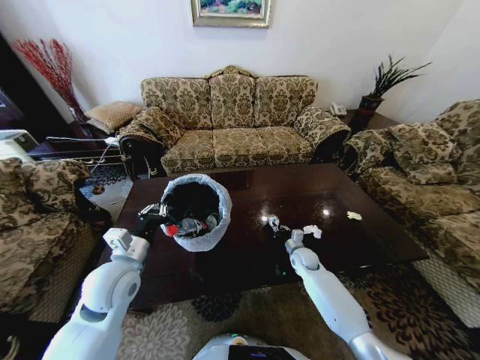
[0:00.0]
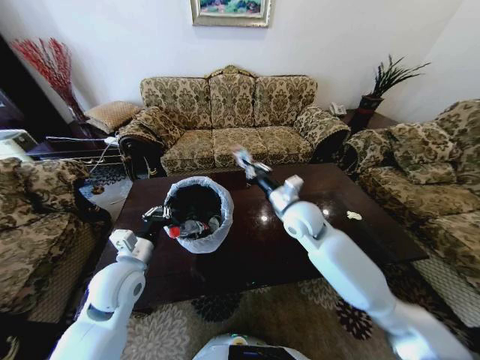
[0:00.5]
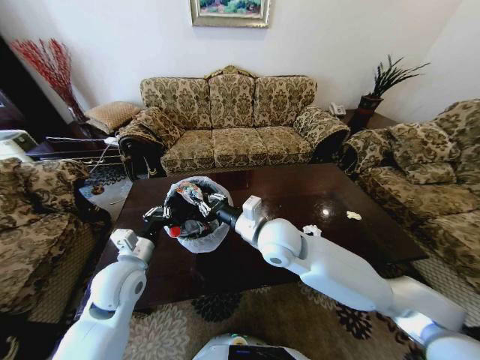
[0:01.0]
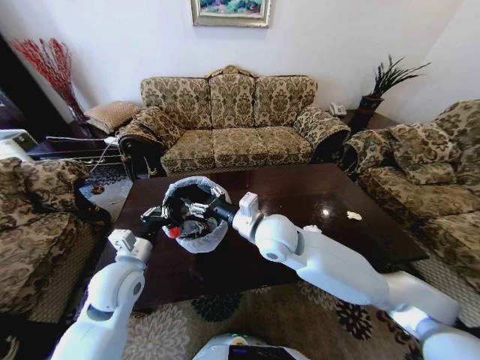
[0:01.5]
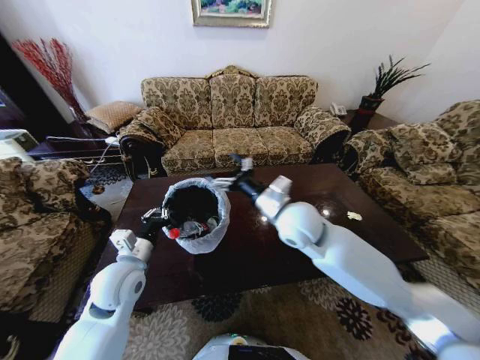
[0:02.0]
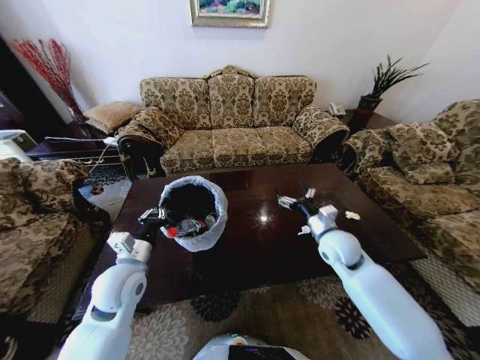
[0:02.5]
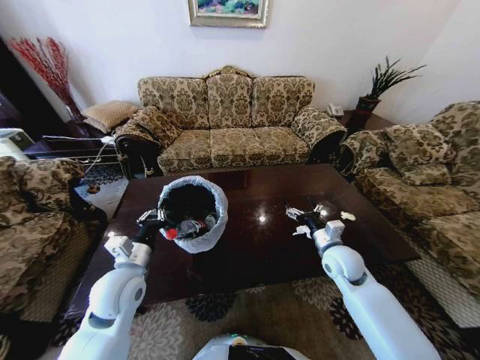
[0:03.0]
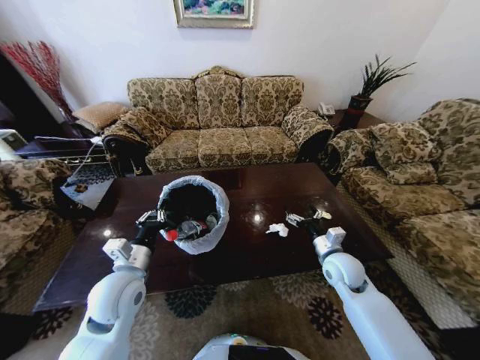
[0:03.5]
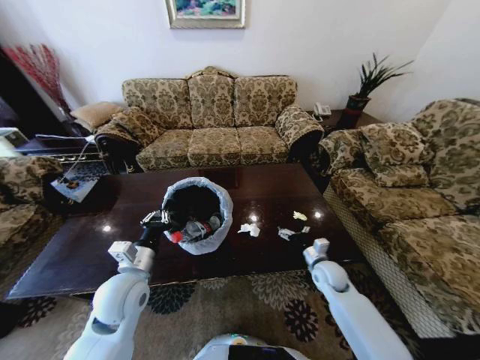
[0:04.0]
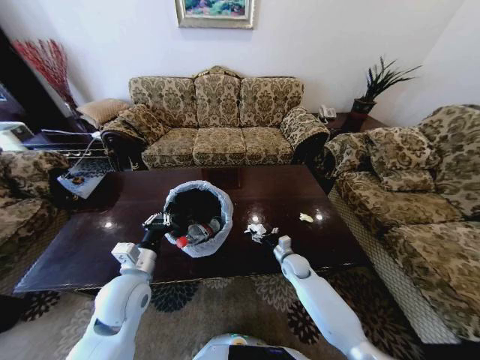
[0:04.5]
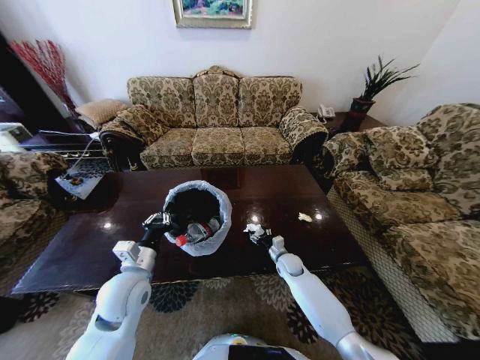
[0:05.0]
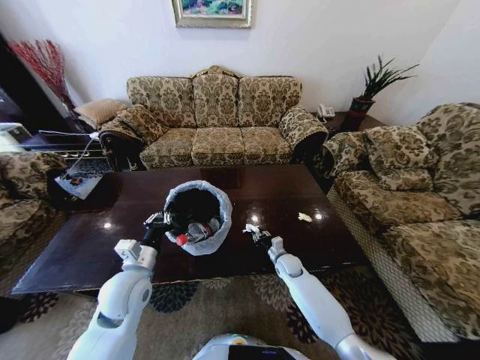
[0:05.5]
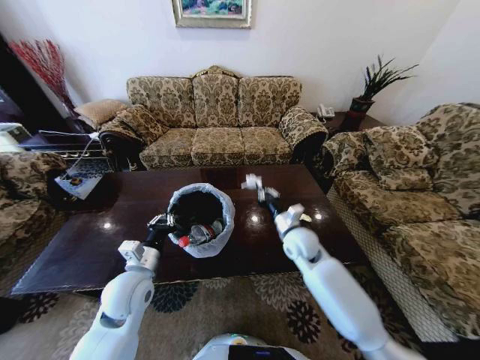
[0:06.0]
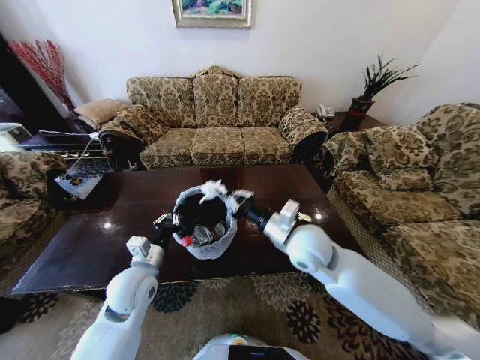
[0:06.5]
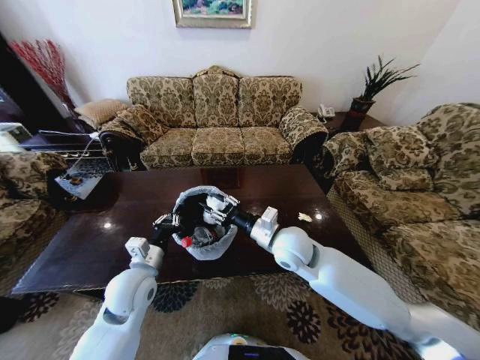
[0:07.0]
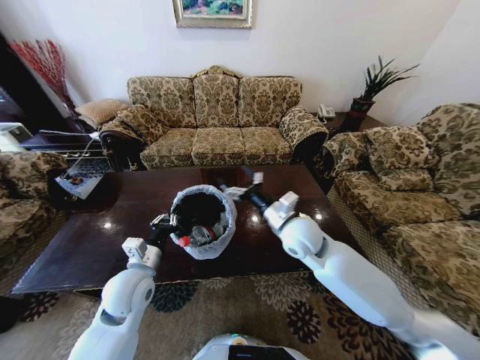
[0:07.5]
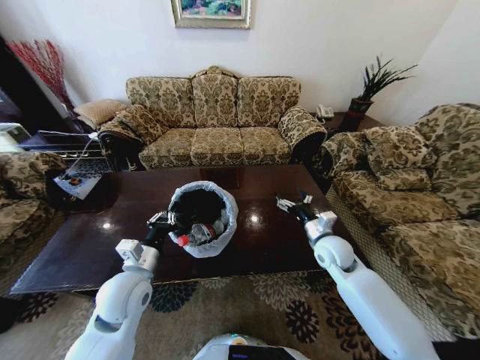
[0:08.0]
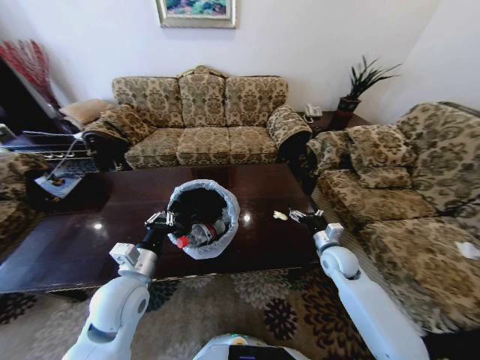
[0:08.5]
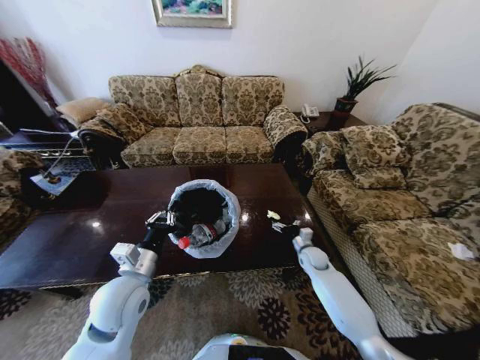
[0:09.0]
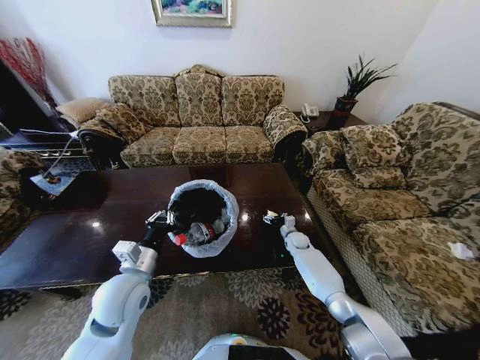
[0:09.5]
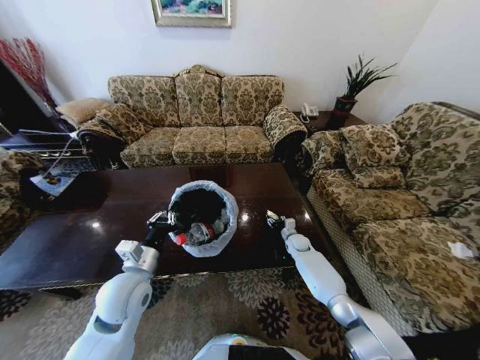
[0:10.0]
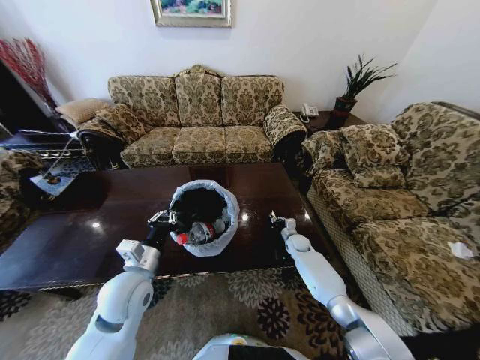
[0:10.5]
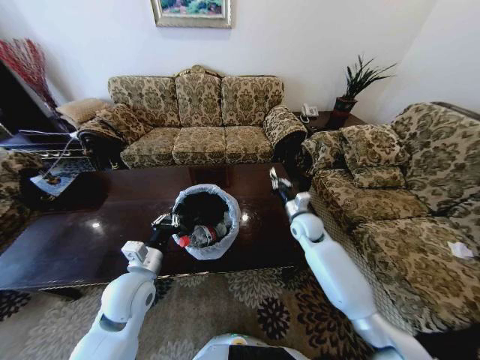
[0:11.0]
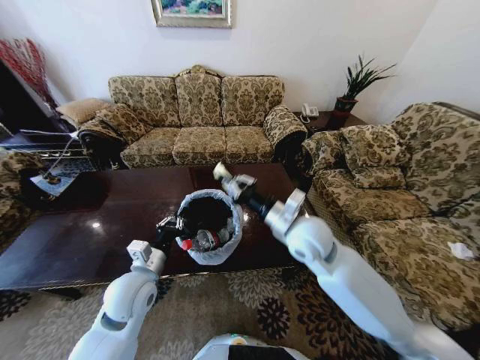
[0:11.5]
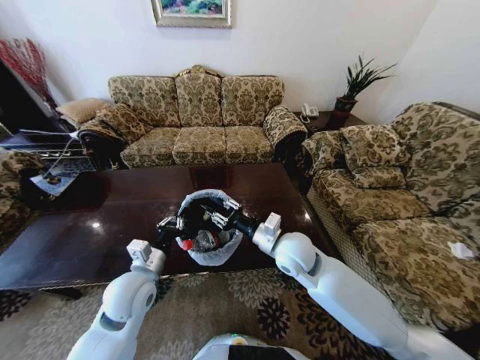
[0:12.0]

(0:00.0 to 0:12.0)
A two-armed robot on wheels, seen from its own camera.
Task of the whole recording: Move to the front of the table and place the trash on the table into the trash bin.
0:00.0 - 0:02.0: The right gripper is displaced upward by approximately 30 cm, and opens up.
0:02.0 - 0:04.0: The right gripper shifts about 30 cm downward and to the right.
0:04.0 - 0:06.0: The right gripper shifts approximately 15 cm upward and to the left, and closes up.
0:06.0 - 0:08.0: The right gripper travels to the right by about 10 cm, and opens up.
0:08.0 - 0:10.0: The right gripper is displaced downward and forward by roughly 25 cm, and closes.
0:10.0 - 0:12.0: The right gripper is displaced upward, backward and to the left by approximately 35 cm, and closes and opens again.

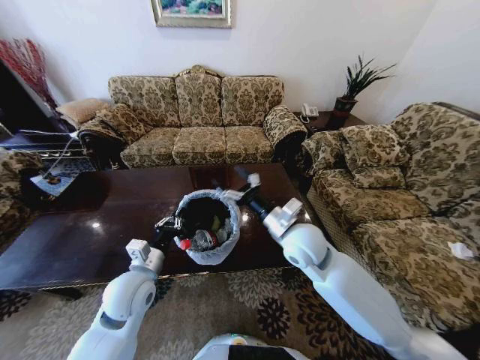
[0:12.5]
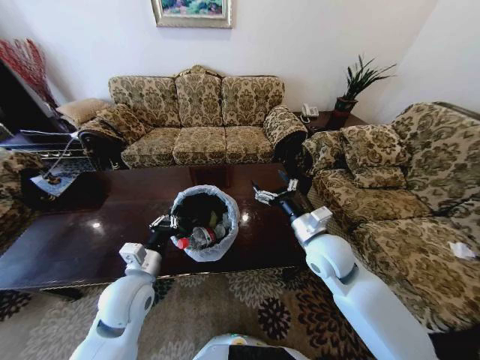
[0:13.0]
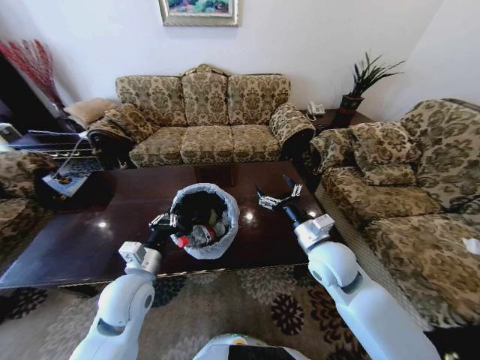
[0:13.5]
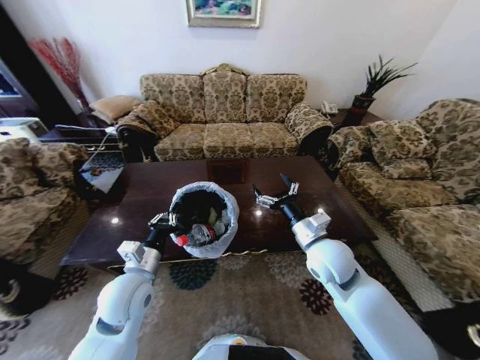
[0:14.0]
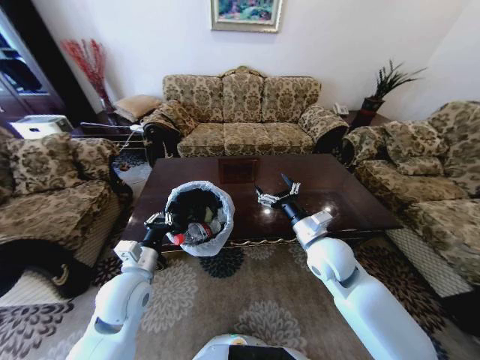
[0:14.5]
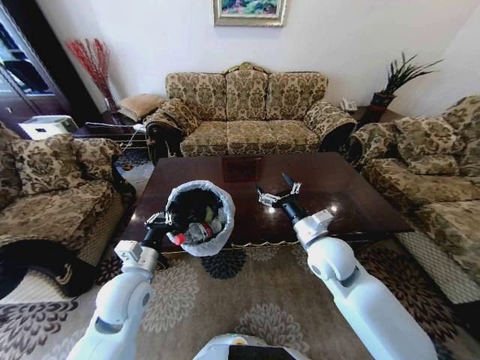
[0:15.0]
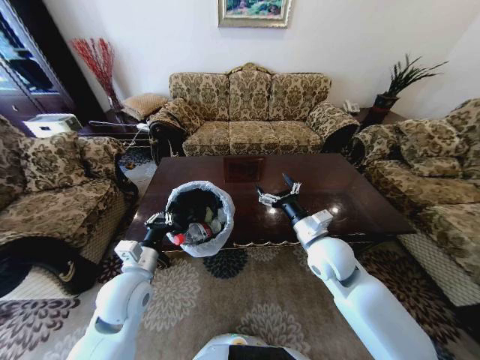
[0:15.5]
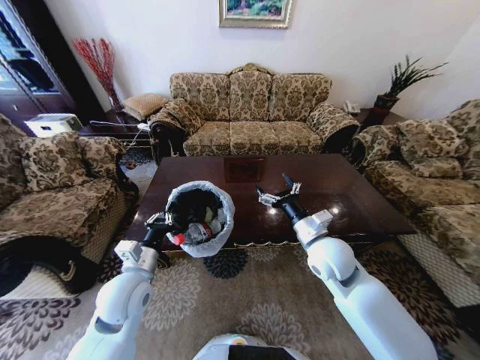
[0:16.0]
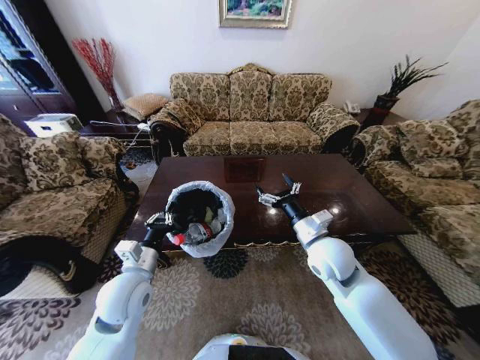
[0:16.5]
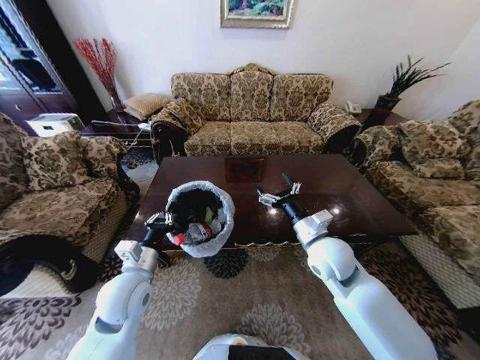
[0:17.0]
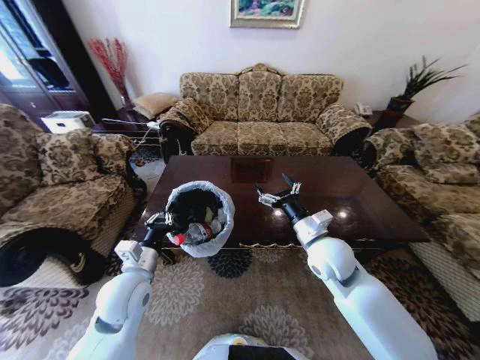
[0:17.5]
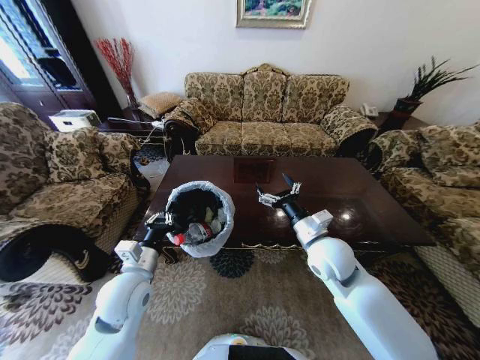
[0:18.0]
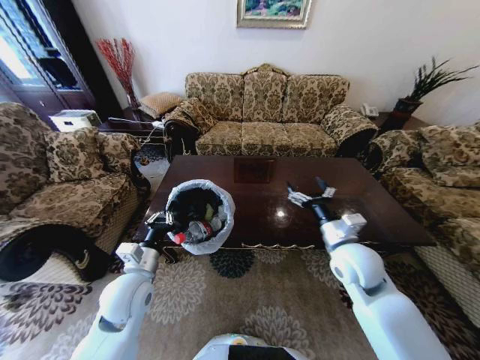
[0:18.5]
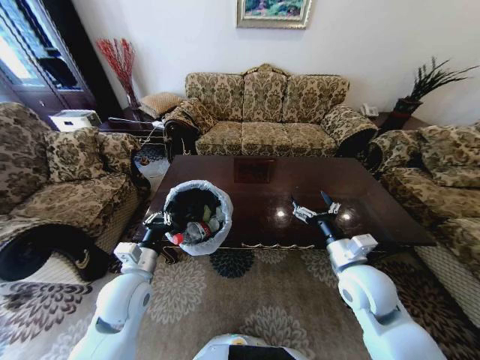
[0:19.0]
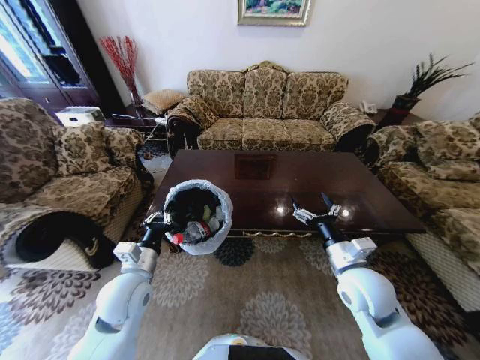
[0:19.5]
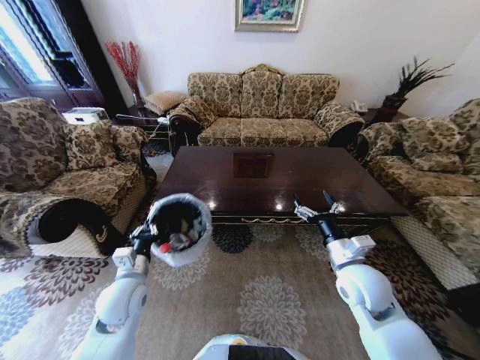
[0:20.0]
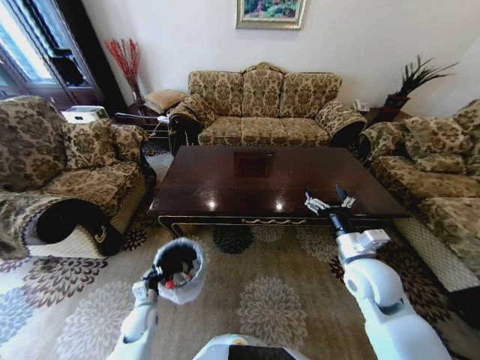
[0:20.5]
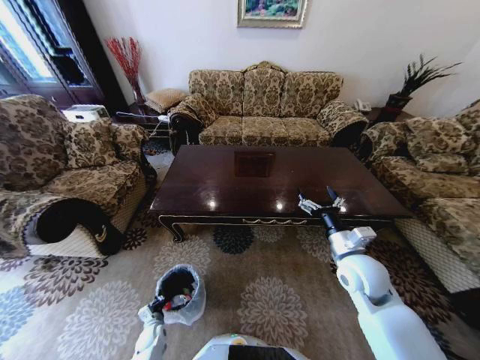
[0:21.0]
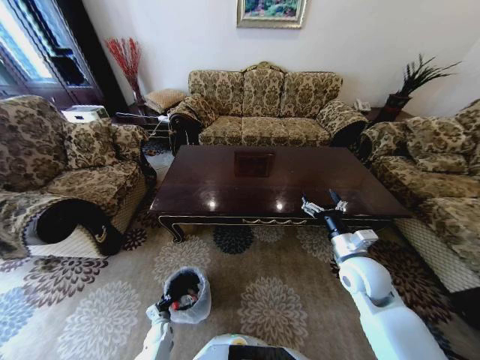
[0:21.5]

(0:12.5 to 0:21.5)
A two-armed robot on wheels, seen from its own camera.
Task of the whole recording: Move to the front of the table and place the trash on the table into the trash bin.
0:12.5 - 0:14.5: The right gripper heads to the right, covering approximately 5 cm.
0:17.0 - 0:19.5: The right gripper heads to the right and backward, covering approximately 10 cm.
0:19.5 - 0:21.5: The right gripper ends up some 5 cm from where it was. Meanwhile the left gripper goes some 40 cm downward.

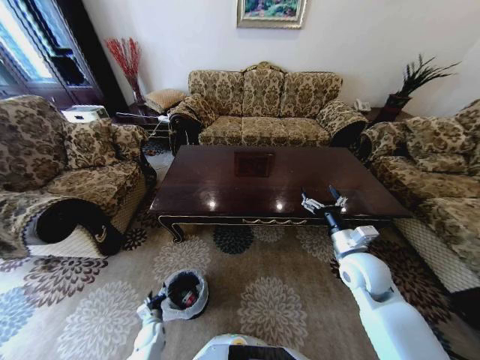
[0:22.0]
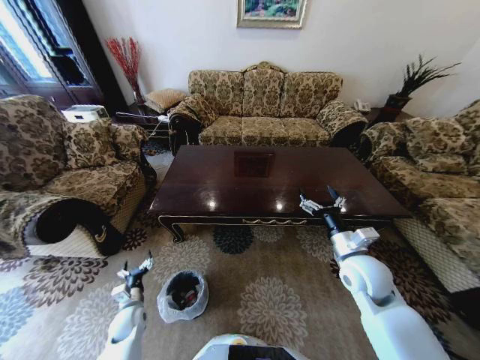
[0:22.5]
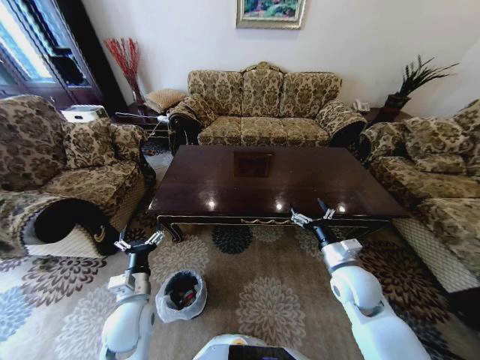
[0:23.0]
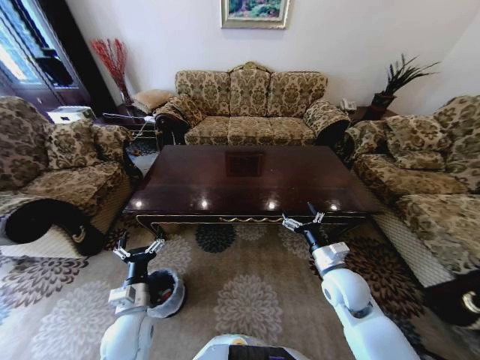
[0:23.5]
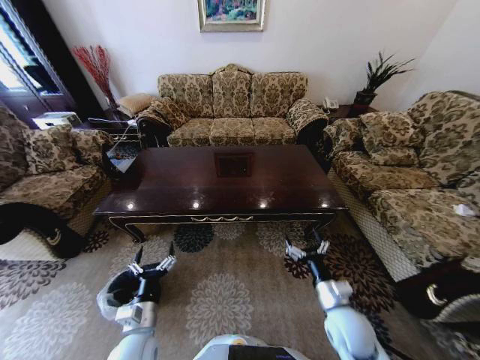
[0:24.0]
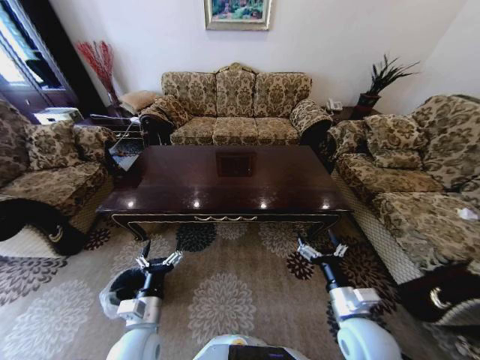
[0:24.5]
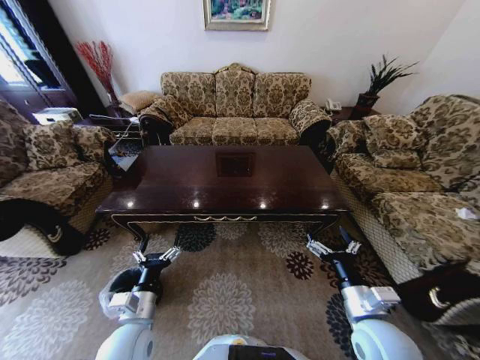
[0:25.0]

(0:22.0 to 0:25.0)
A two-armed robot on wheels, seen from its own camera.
Task of the whole recording: Move to the front of the table and place the trash on the table into the trash bin.
0:22.0 - 0:23.5: The left gripper shifts some 30 cm upward; the right gripper changes place by approximately 5 cm.
0:23.5 - 0:25.0: The right gripper heads backward, covering about 10 cm.

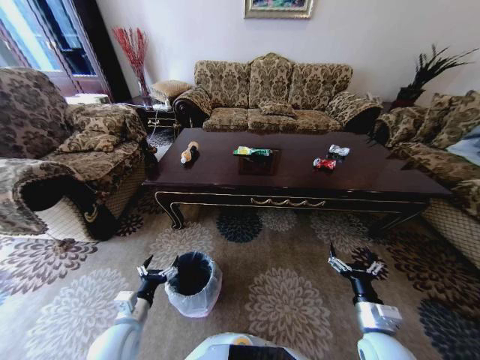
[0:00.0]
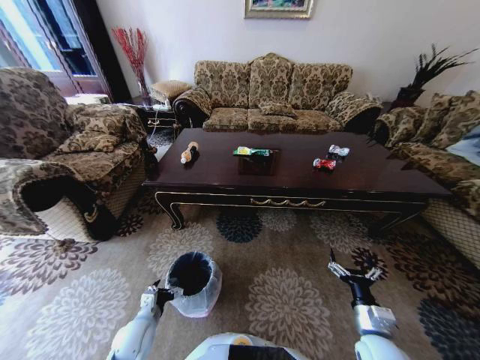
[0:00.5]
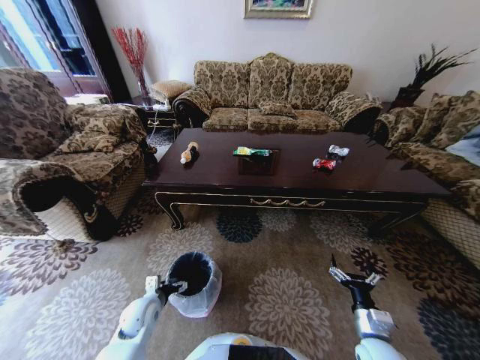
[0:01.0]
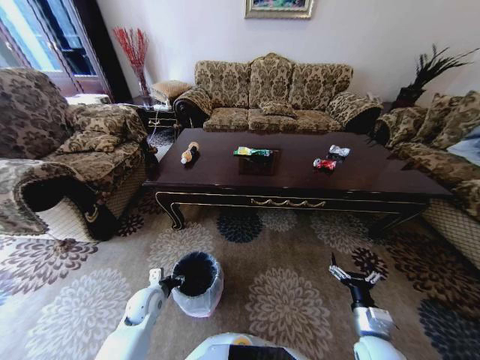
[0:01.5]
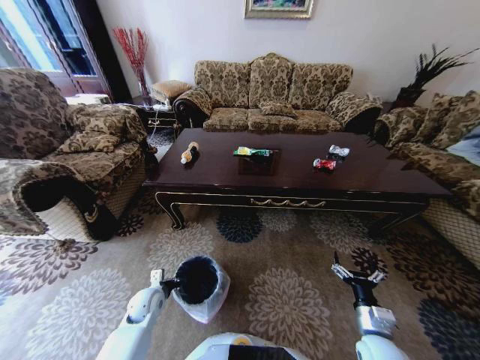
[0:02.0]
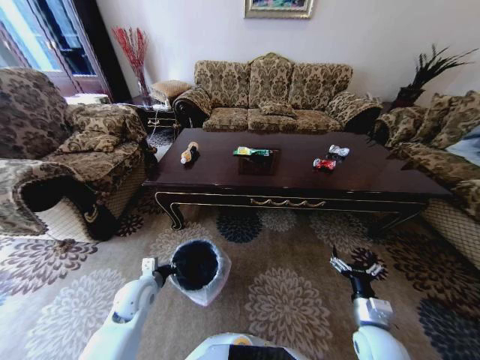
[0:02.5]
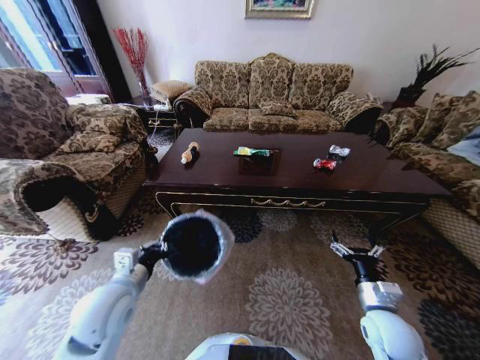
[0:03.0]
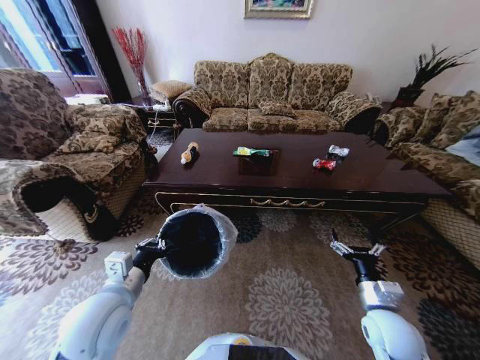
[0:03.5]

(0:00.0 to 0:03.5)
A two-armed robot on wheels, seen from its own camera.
Task of the whole recording: Move to the front of the table and place the trash on the table into the trash bin.
0:00.0 - 0:02.0: The left gripper travels forward and downward by roughly 15 cm, and closes its fingers.
0:02.0 - 0:03.5: The right gripper goes some 5 cm upward, while the left gripper is displaced upward by roughly 25 cm.
